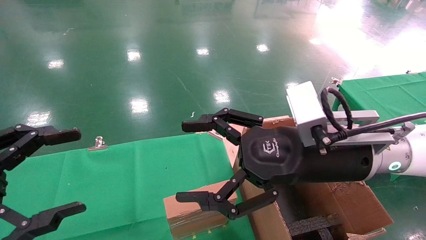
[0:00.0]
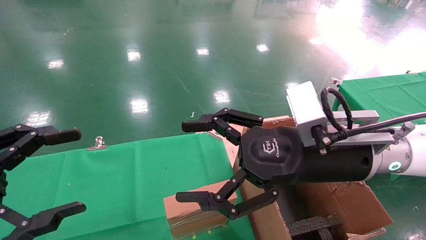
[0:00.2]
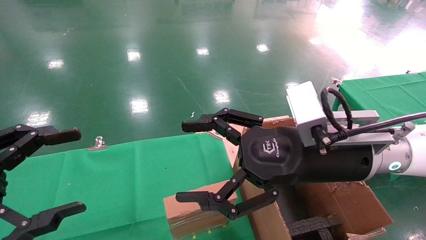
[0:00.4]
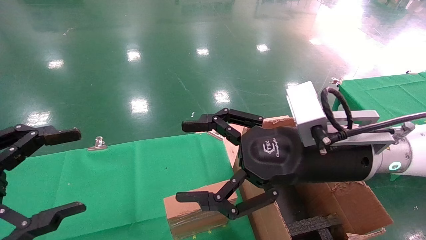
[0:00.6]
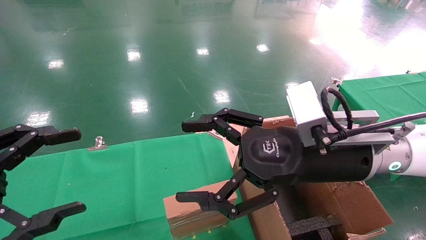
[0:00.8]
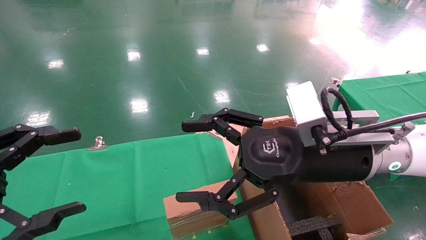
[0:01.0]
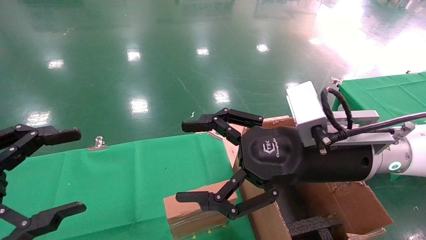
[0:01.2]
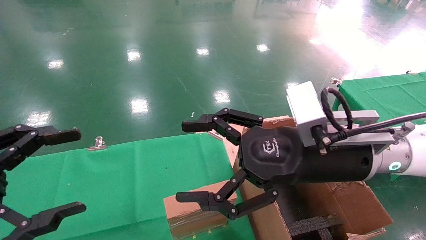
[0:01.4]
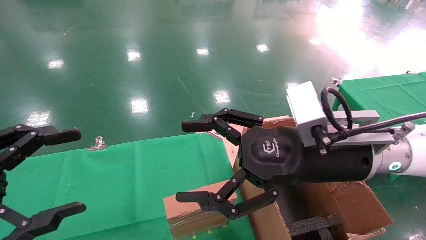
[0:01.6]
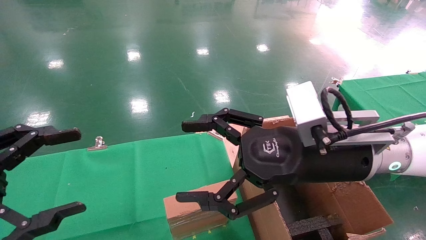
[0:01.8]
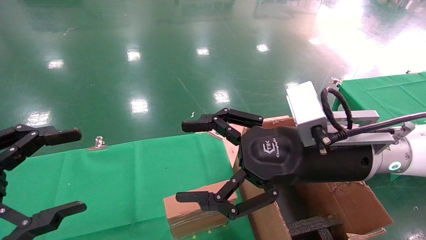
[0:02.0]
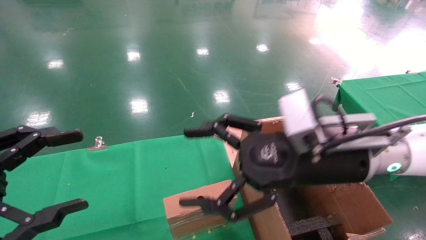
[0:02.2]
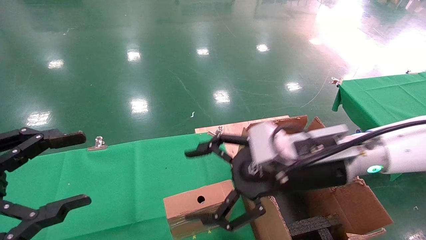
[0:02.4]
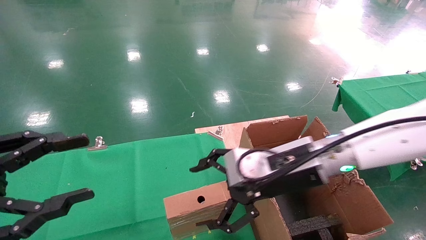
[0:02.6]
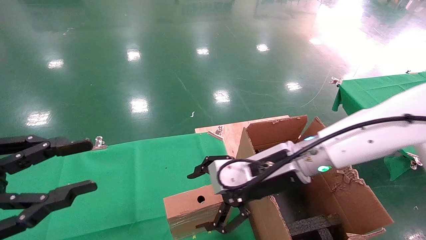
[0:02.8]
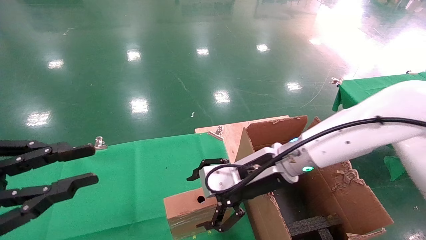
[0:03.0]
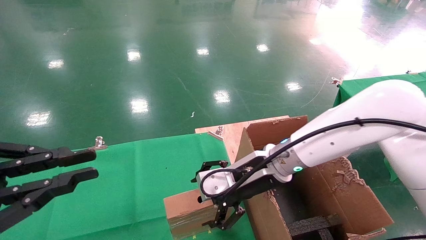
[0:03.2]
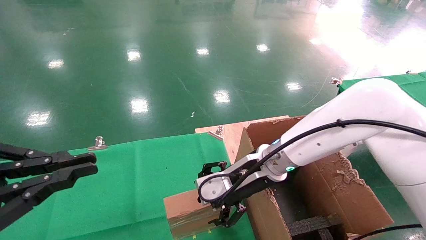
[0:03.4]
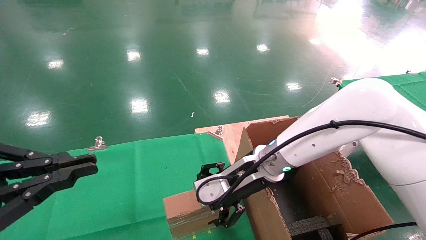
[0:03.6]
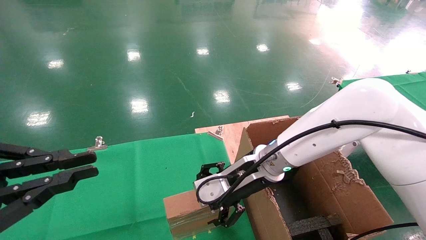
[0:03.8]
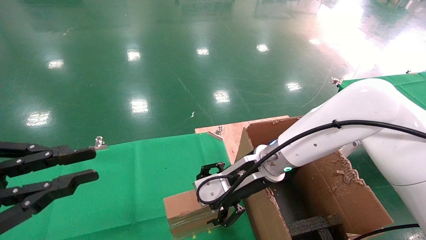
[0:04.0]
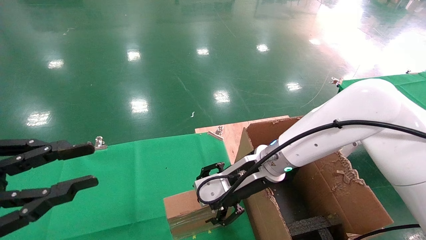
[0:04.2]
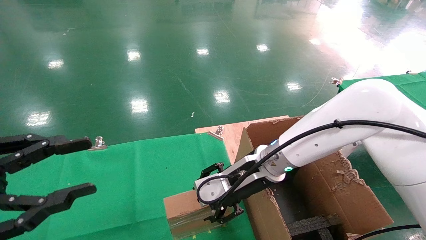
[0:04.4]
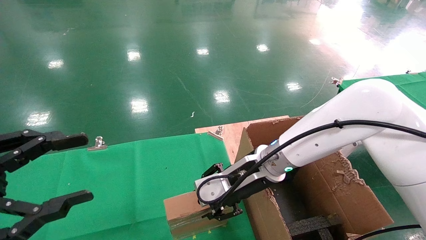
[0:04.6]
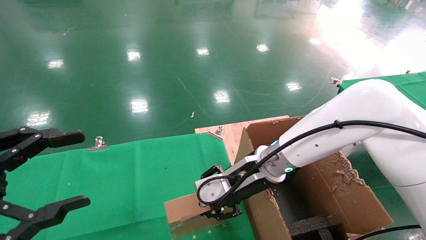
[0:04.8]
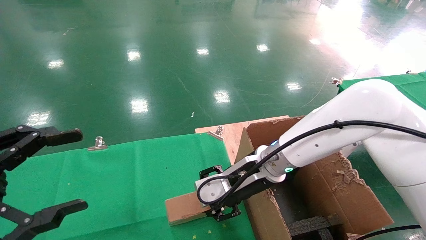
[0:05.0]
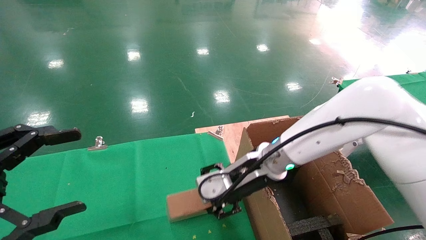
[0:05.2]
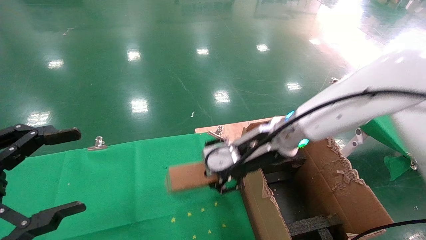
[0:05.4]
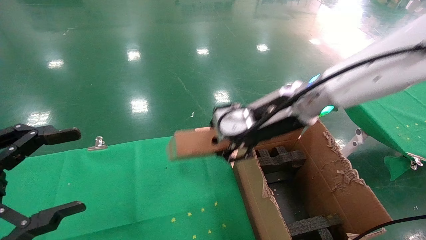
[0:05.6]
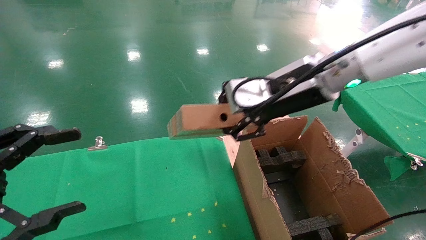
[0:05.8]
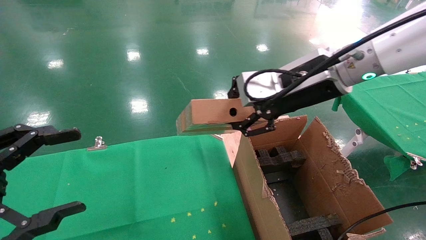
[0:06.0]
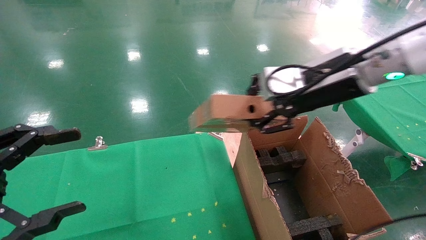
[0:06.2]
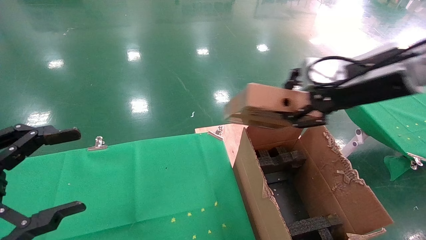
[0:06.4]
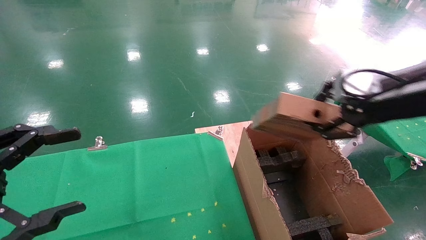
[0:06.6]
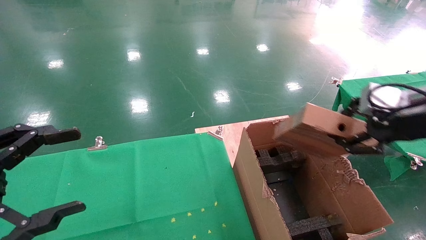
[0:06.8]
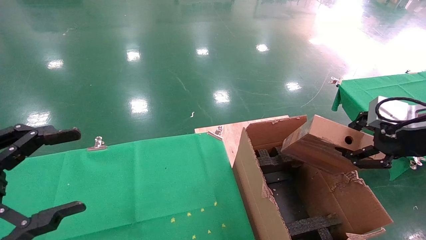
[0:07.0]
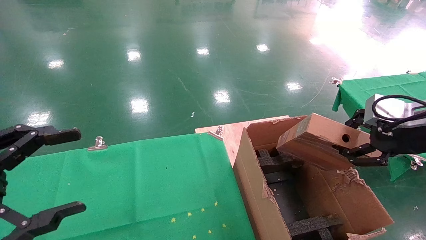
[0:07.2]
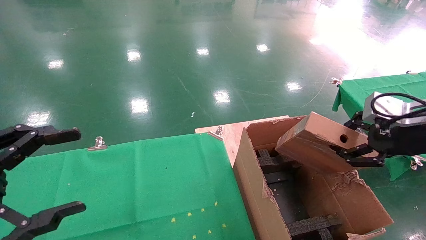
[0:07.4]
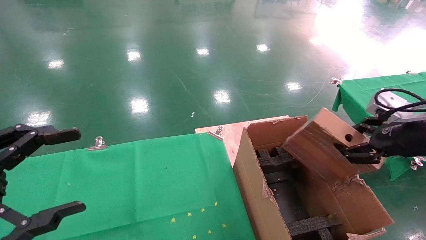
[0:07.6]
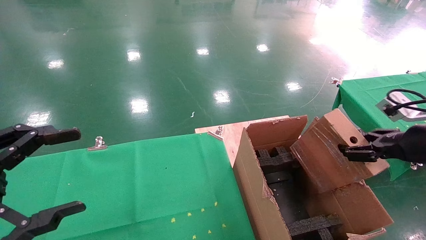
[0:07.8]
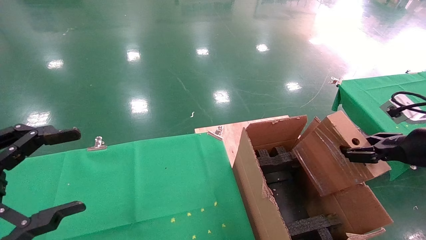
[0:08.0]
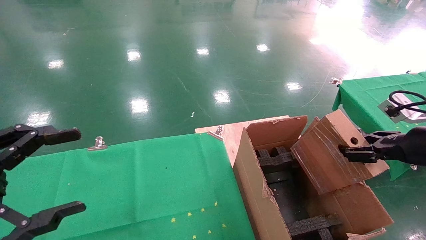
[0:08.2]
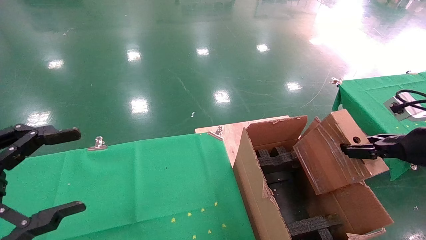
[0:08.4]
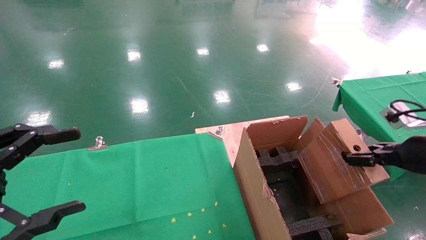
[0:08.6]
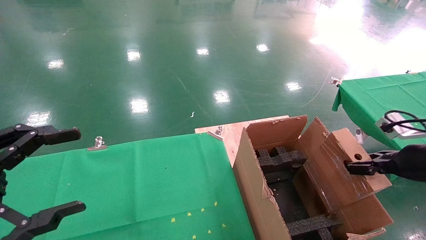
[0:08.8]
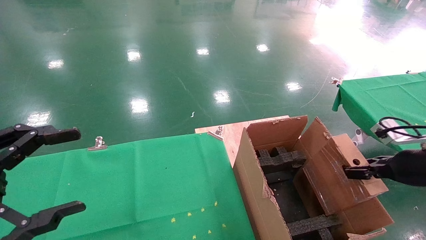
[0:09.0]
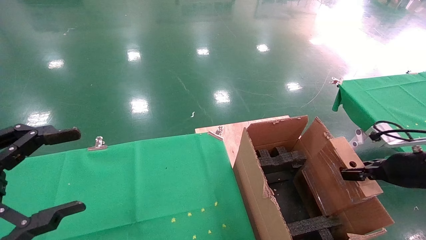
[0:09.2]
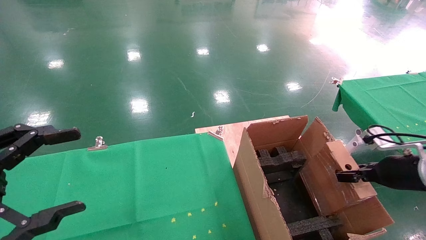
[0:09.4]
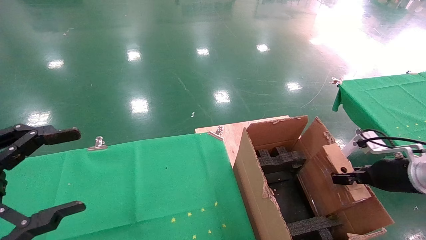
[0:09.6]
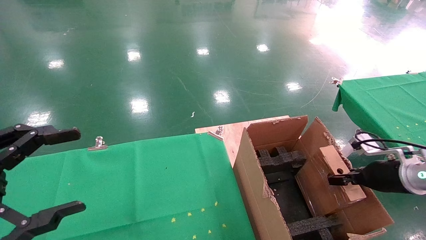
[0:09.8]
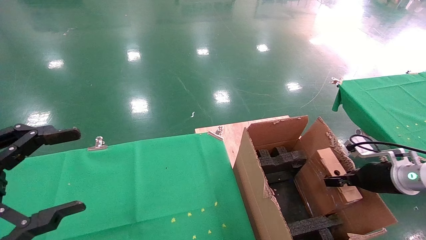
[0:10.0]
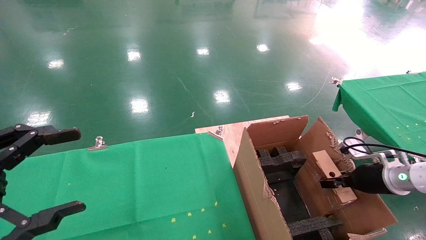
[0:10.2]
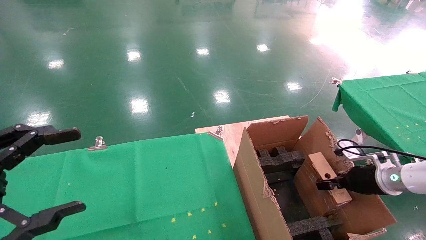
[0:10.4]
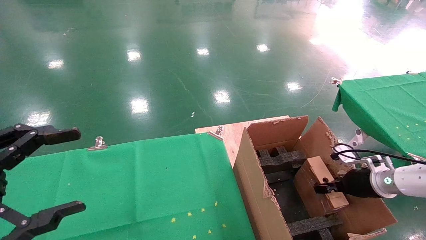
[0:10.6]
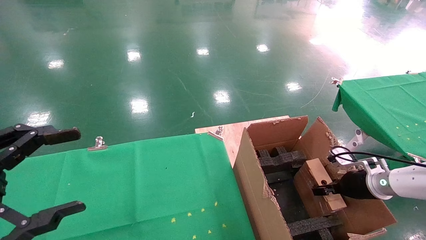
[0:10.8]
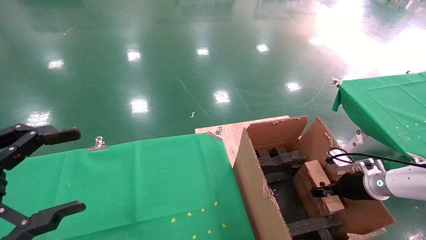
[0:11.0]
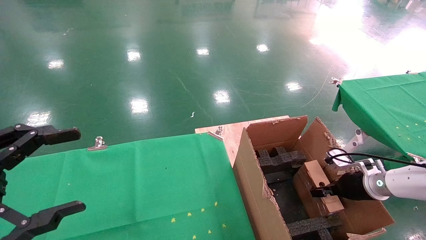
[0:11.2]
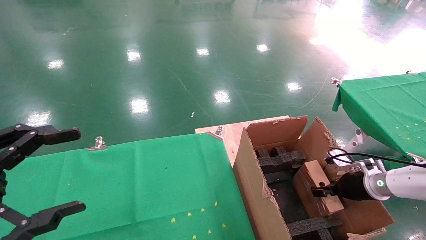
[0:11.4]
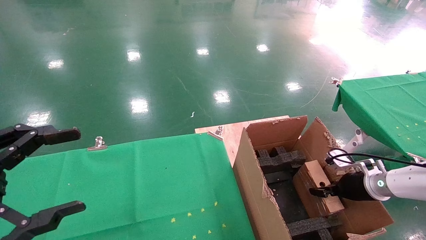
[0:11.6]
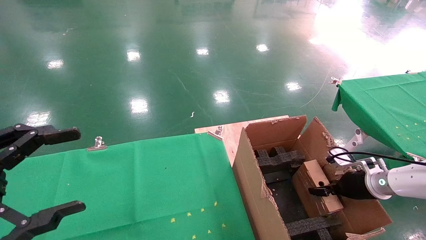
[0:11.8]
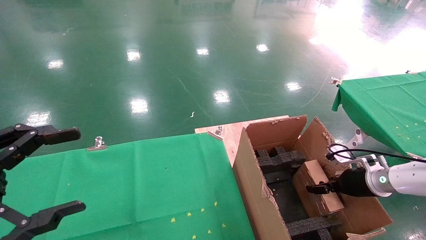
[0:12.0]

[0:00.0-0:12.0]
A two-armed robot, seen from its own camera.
Task of the whole recording: using a robotic arm to pick up a cardboard box and palace it the carton.
Step, 0:02.2 to 0:04.8: Pick up the mouse and the power cord paper box.
0:00.0 to 0:01.6: The two grippers keep their place.
0:01.6 to 0:03.0: The left gripper closes its fingers. The right gripper goes roughly 10 cm forward, downward and to the left.
0:03.0 to 0:04.4: The left gripper closes, then opens again.
0:04.4 to 0:06.0: The right gripper goes about 20 cm upward and to the right, and closes its fingers; the left gripper opens.
0:06.0 to 0:07.6: The right gripper heads to the right and downward, covering roughly 20 cm.
0:07.6 to 0:09.0: The right gripper shifts about 10 cm downward.
0:09.0 to 0:10.4: The right gripper is displaced downward and forward by about 15 cm.
0:10.4 to 0:12.0: The right gripper opens up.

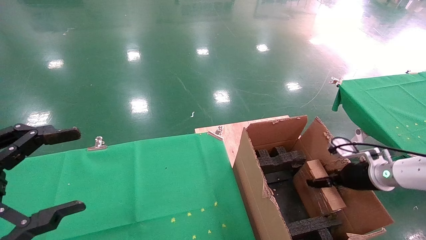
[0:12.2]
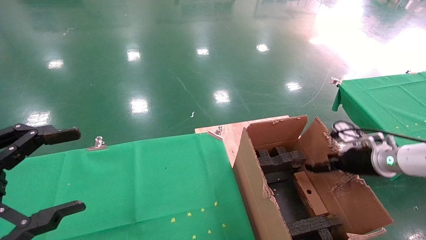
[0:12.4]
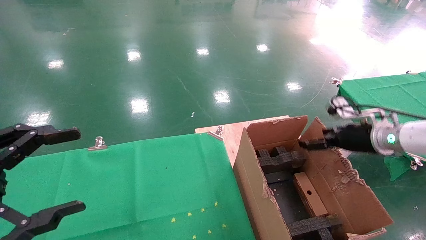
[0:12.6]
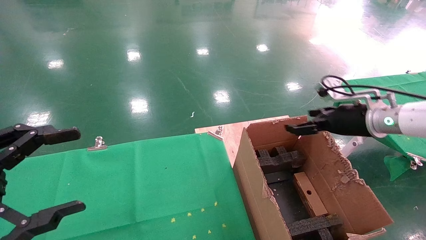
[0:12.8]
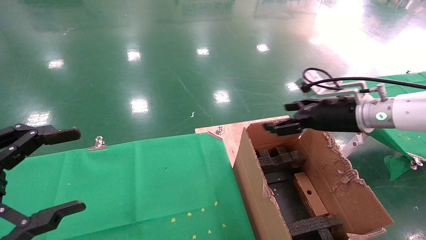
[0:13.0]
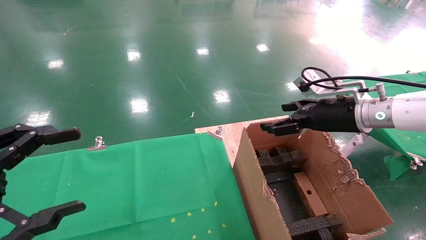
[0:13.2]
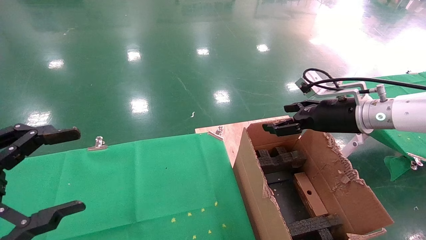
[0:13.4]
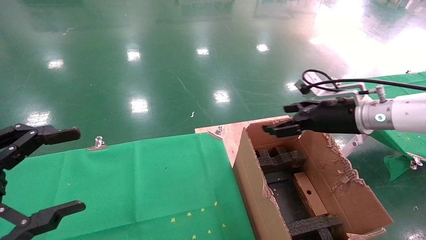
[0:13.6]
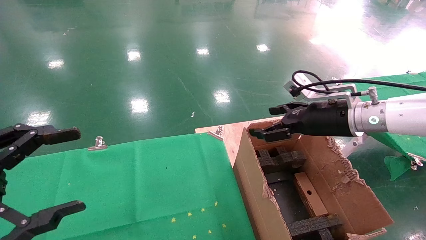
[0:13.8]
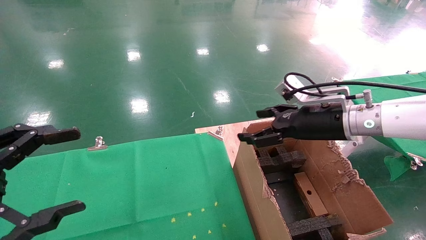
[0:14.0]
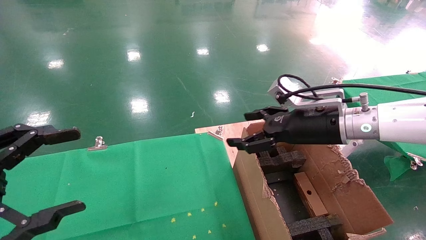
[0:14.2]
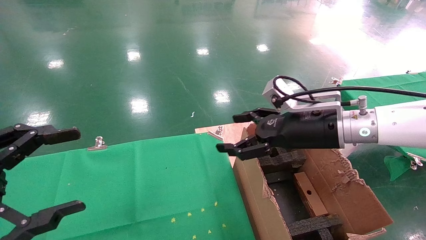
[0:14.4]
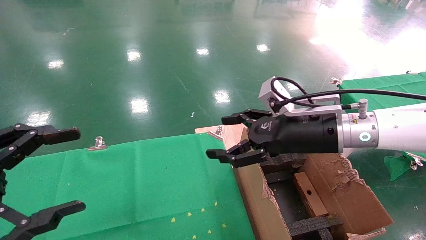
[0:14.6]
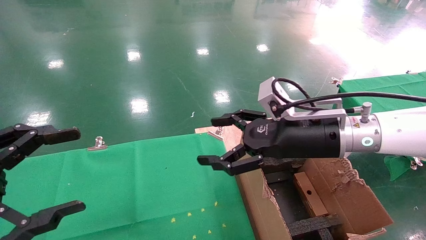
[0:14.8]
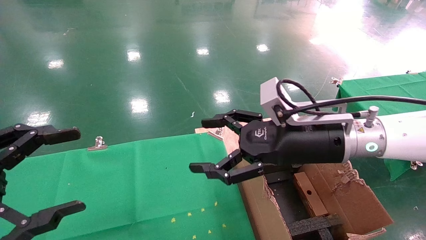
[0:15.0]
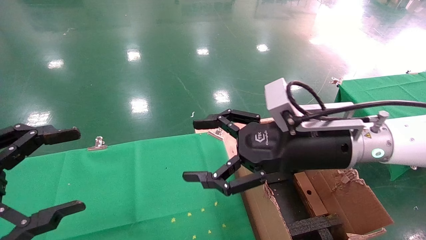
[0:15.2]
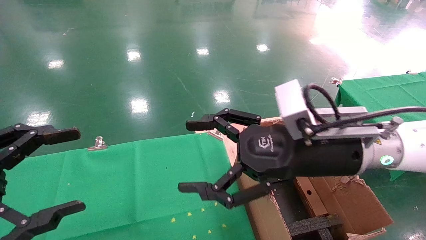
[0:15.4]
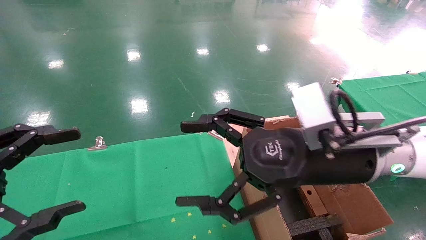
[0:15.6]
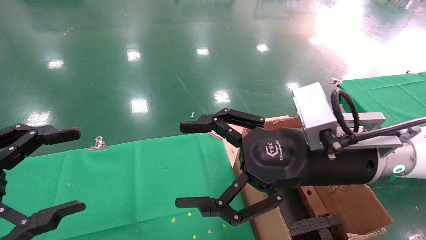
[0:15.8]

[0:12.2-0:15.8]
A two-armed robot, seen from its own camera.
Task of the whole recording: using a robotic arm to pick up a cardboard box and palace it the carton.
0:12.2 to 0:14.0: The right gripper shifts some 20 cm to the left and upward, and opens.
0:14.0 to 0:15.8: The right gripper is displaced backward and to the left by roughly 15 cm.

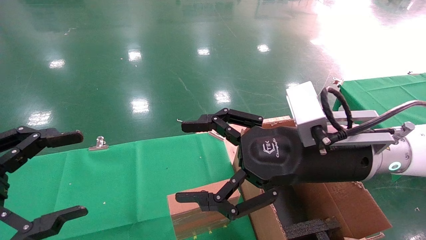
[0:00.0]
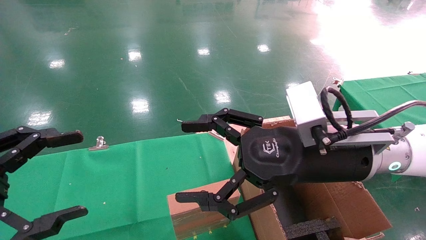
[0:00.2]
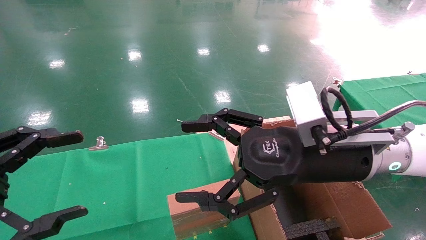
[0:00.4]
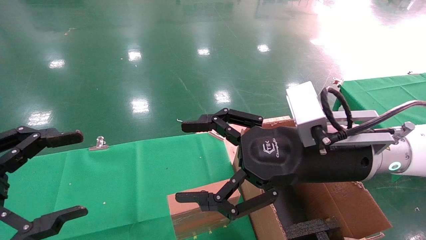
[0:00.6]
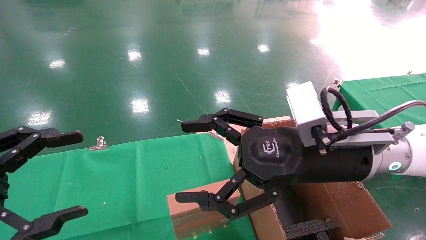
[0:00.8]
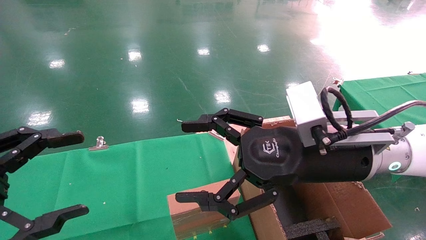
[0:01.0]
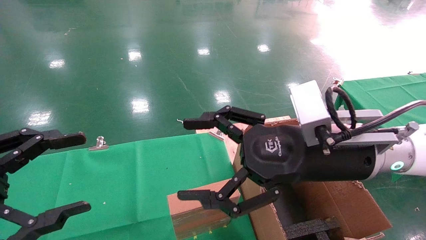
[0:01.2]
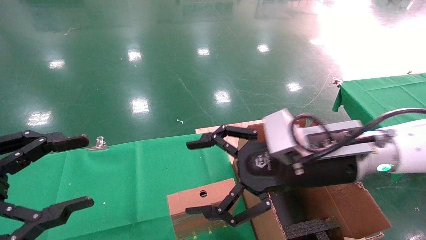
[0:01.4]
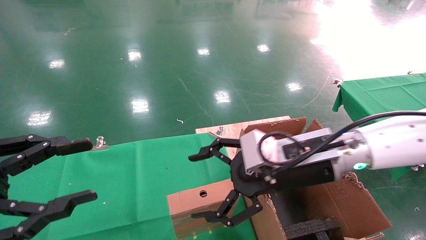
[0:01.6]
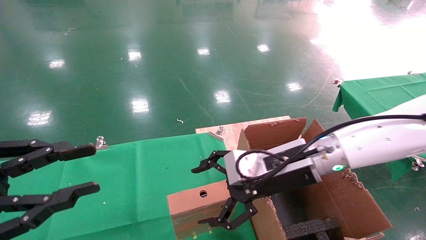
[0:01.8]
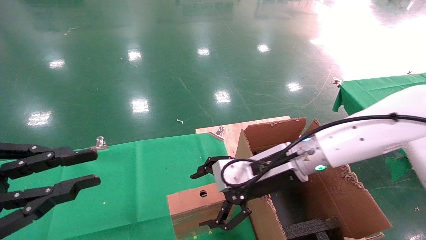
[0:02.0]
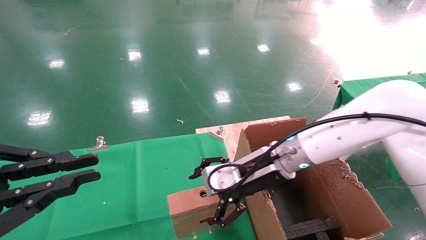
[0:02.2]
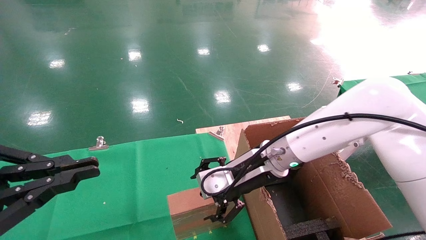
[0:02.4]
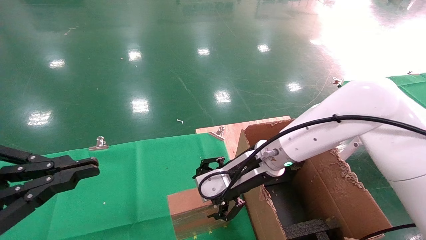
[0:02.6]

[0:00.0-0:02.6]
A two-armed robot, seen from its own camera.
Task of the whole recording: using a robotic arm to pick up a cardboard box and palace it the carton.
0:00.0 to 0:01.2: There are only small adjustments of the grippers.
0:01.2 to 0:02.6: The right gripper goes approximately 15 cm forward, downward and to the left. The left gripper closes its fingers.
